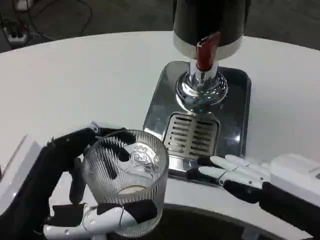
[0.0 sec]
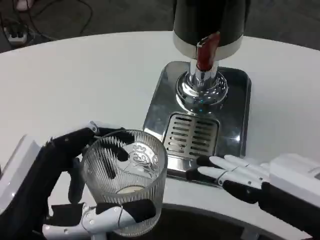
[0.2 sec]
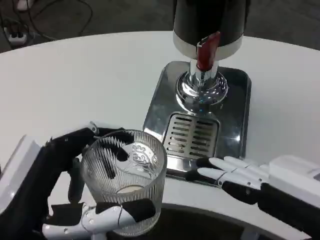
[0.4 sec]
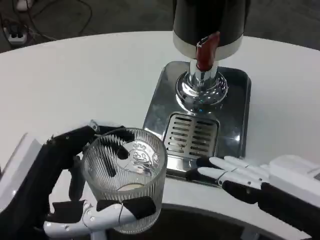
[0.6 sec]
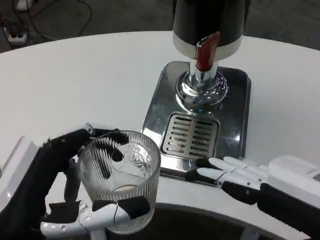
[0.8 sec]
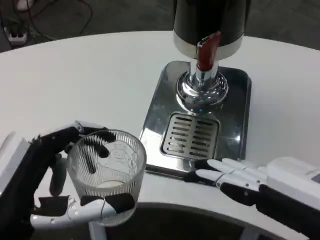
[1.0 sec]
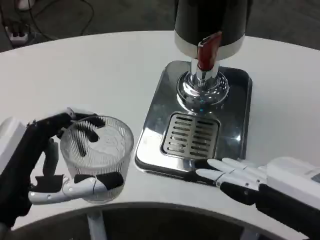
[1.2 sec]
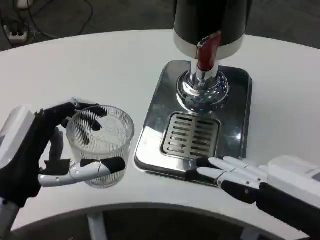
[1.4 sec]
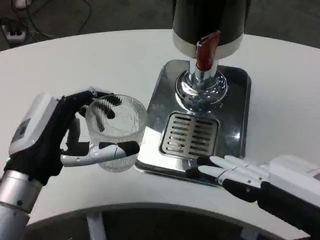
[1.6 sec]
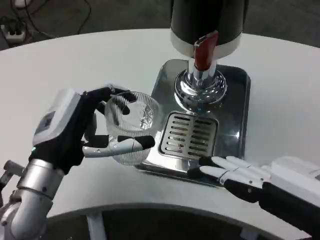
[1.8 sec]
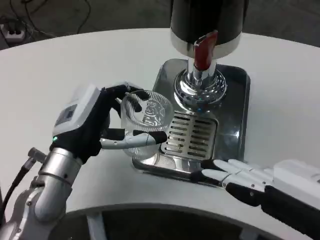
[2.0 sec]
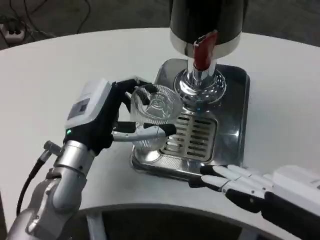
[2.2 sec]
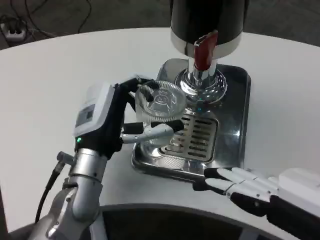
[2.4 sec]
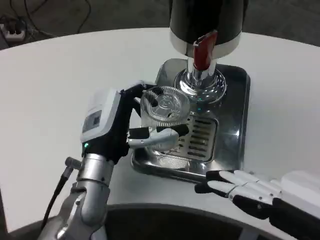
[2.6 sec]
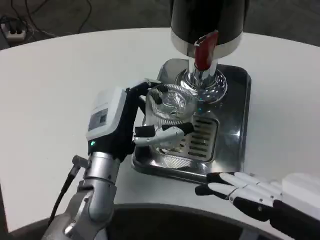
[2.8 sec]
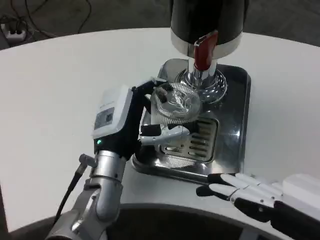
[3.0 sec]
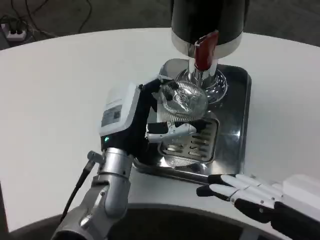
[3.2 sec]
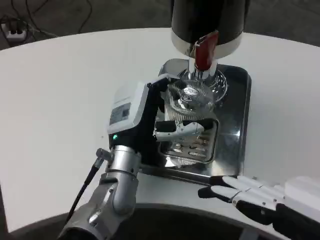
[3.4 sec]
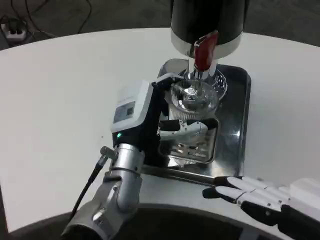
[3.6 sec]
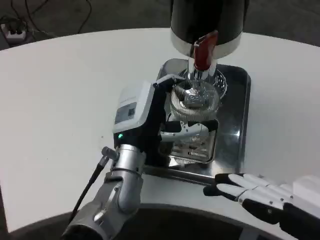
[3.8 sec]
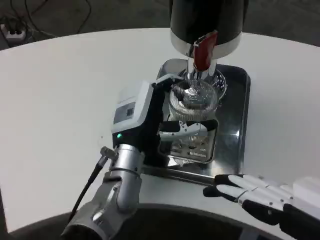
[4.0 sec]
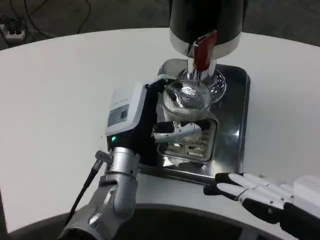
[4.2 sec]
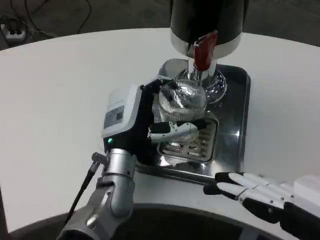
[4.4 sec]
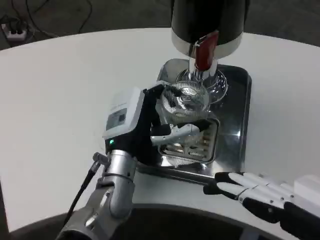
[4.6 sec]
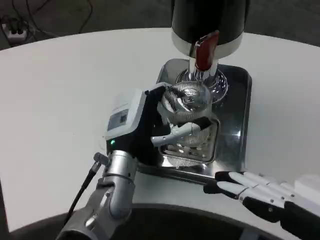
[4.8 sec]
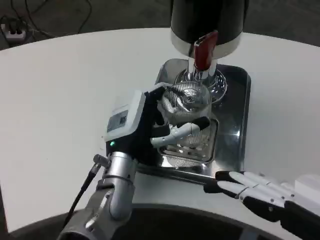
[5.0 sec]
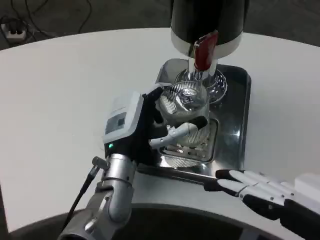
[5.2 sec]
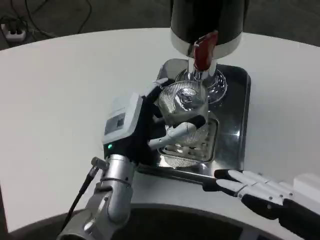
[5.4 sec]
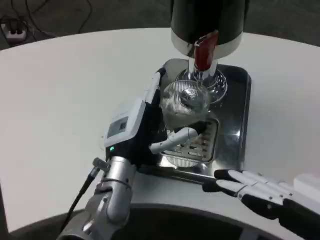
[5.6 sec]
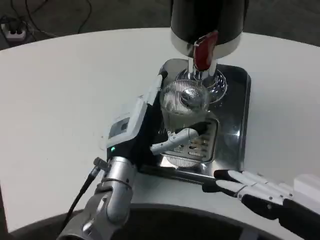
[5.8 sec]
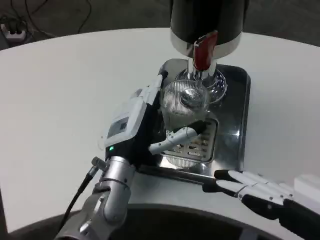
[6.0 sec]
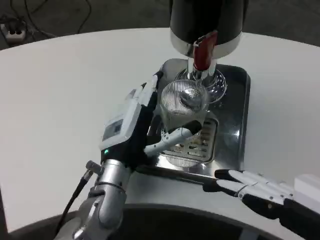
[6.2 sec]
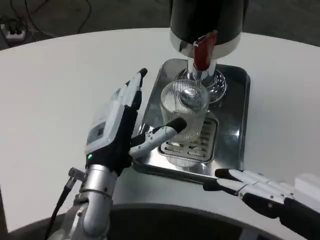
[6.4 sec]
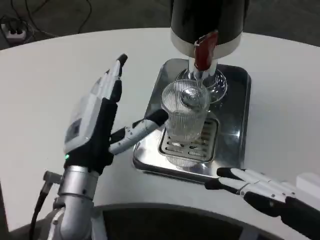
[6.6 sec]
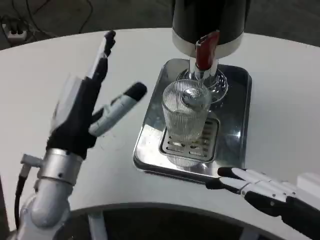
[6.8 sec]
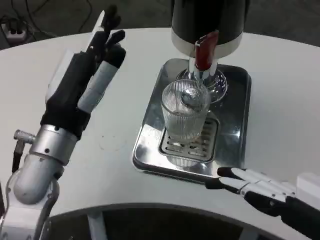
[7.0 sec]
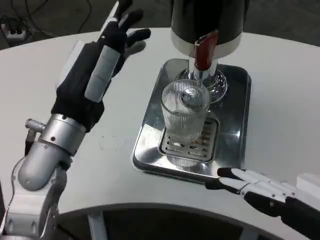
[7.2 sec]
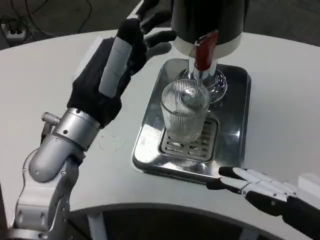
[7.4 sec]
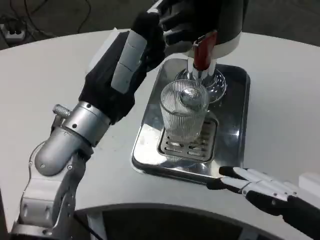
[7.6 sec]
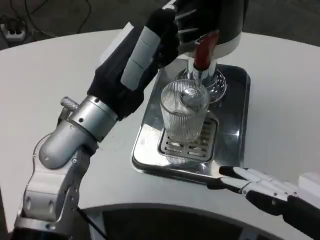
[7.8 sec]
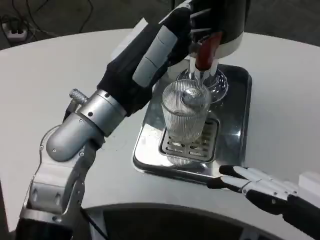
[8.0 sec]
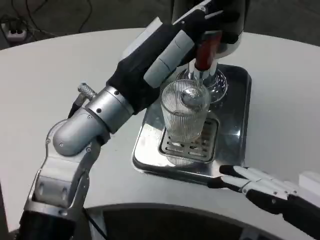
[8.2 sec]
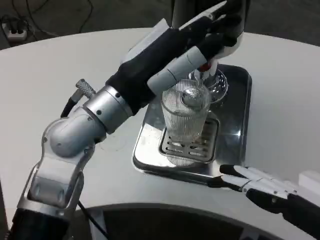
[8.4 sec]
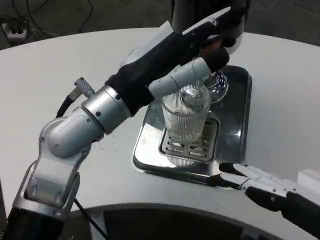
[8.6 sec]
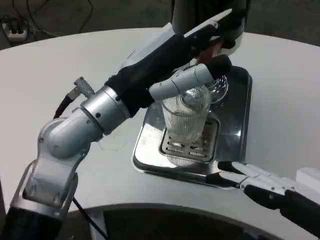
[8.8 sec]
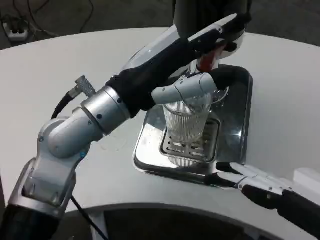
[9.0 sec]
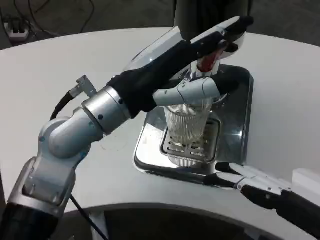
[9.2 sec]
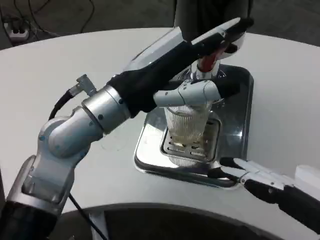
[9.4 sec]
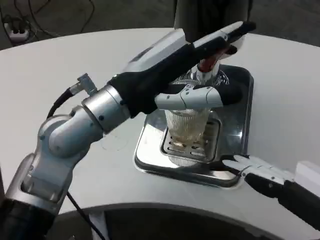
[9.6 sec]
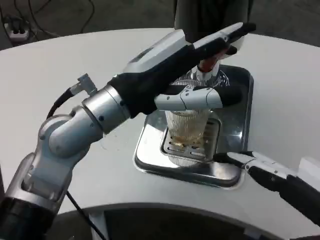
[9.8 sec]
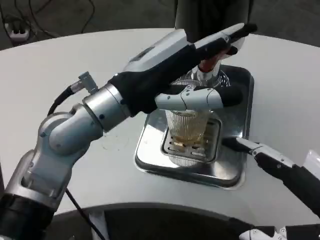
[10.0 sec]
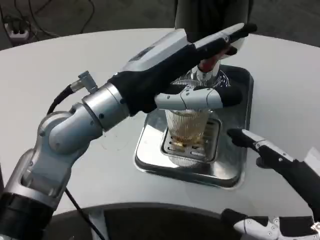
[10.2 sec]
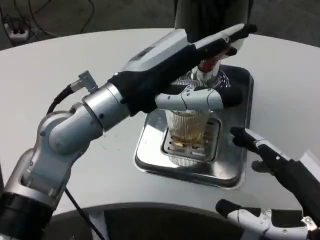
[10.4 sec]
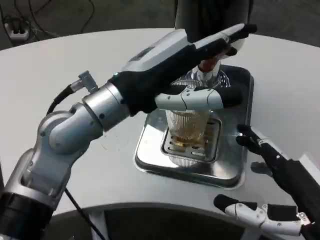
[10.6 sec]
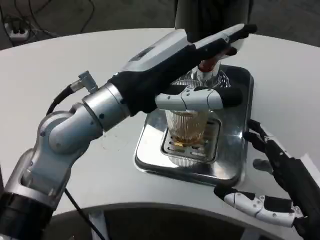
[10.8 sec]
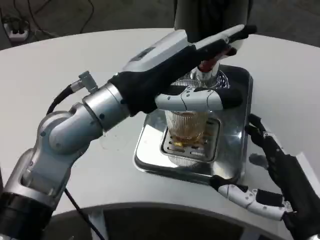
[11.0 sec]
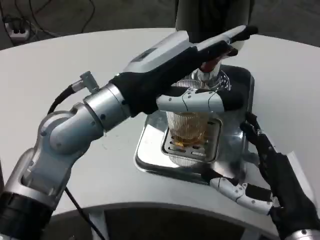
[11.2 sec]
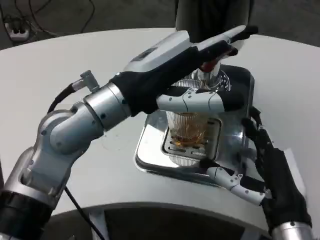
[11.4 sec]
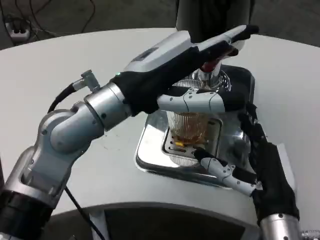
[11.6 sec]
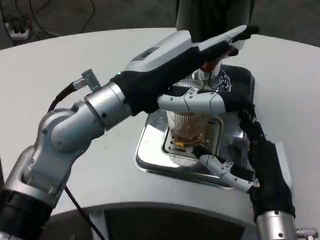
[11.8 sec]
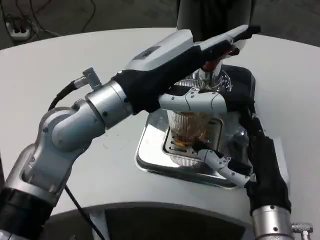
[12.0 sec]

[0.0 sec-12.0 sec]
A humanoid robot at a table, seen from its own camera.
Task of the whole recording: Grasp the cup under the faucet to collect the drink, then remove the cup.
0.0 sec to 1.6 sec: The left hand moves forward, some 10 cm.
1.6 sec to 3.0 sec: The left hand shifts some 15 cm to the right and forward.
3.0 sec to 6.0 sec: The hands make only small movements.
6.0 sec to 7.6 sec: The left hand heads upward, covering approximately 10 cm.
9.0 sec to 10.4 sec: The right hand heads downward, covering roughly 5 cm.
10.4 sec to 12.0 sec: The right hand is displaced forward, to the left and downward by approximately 15 cm.

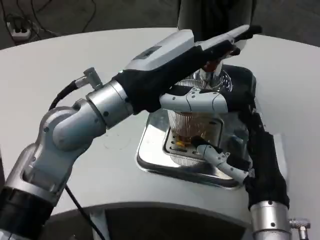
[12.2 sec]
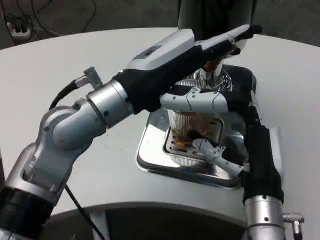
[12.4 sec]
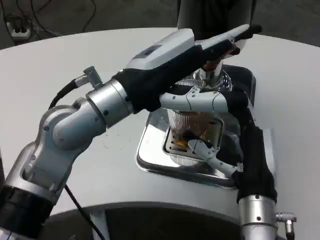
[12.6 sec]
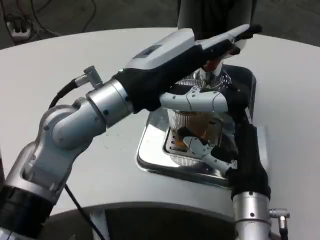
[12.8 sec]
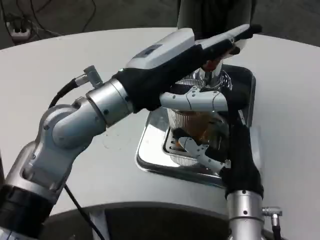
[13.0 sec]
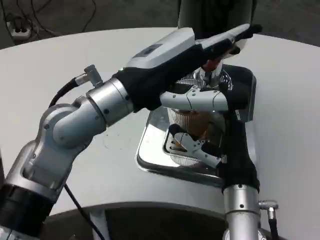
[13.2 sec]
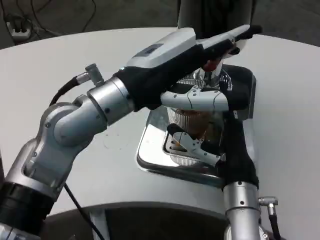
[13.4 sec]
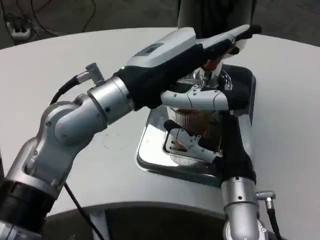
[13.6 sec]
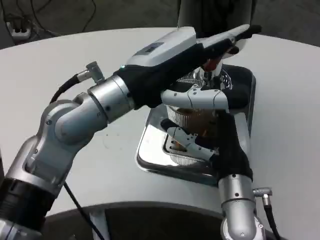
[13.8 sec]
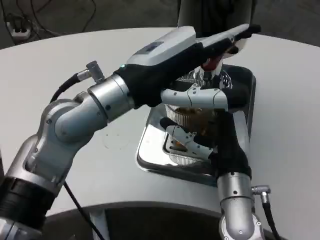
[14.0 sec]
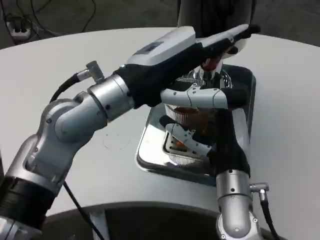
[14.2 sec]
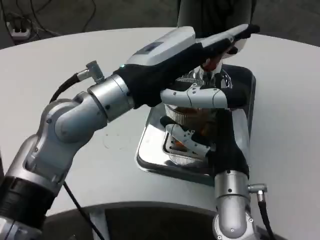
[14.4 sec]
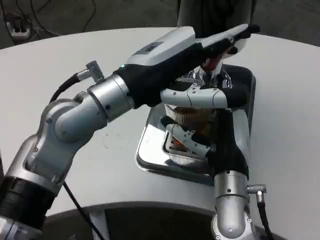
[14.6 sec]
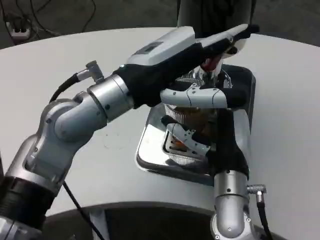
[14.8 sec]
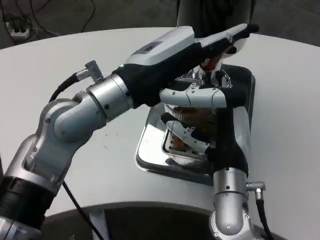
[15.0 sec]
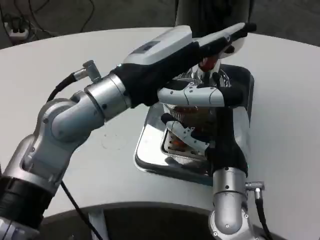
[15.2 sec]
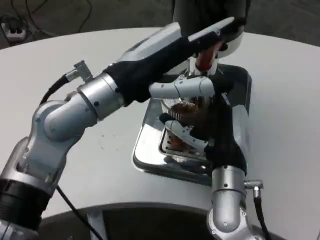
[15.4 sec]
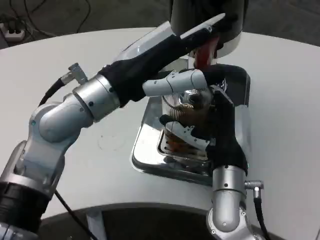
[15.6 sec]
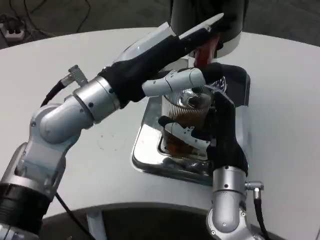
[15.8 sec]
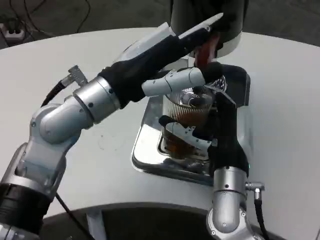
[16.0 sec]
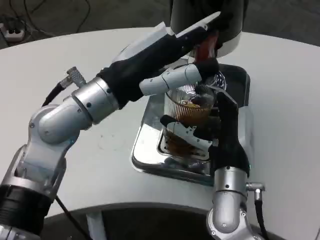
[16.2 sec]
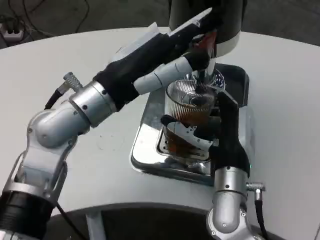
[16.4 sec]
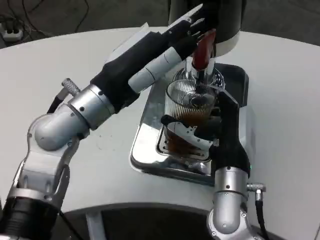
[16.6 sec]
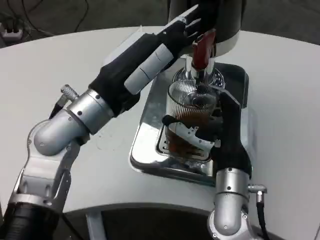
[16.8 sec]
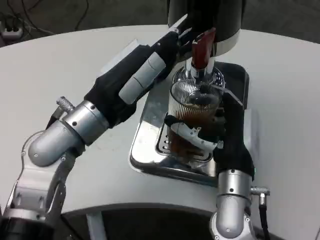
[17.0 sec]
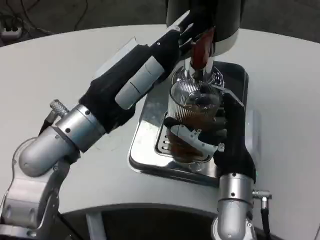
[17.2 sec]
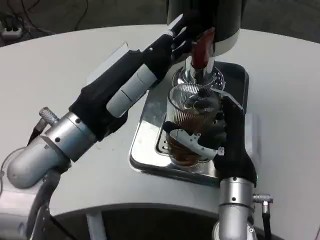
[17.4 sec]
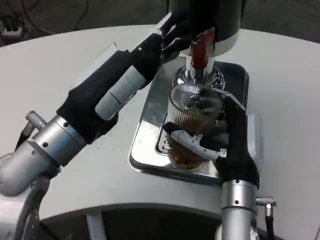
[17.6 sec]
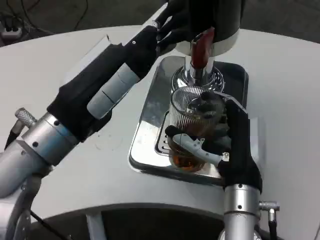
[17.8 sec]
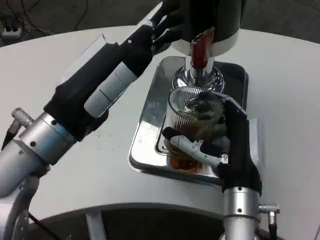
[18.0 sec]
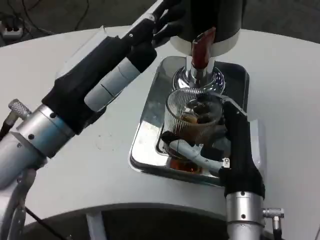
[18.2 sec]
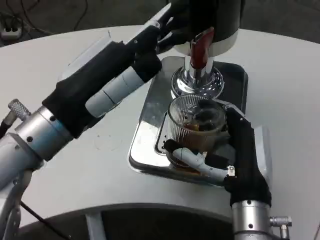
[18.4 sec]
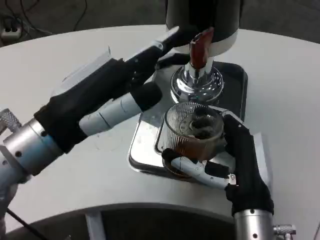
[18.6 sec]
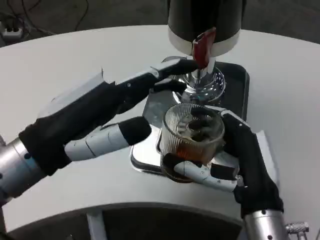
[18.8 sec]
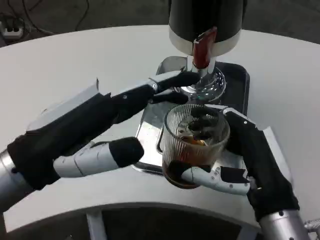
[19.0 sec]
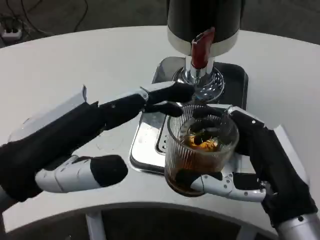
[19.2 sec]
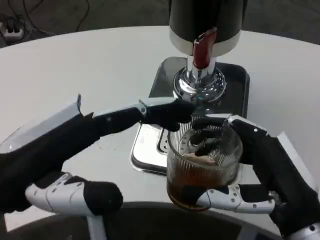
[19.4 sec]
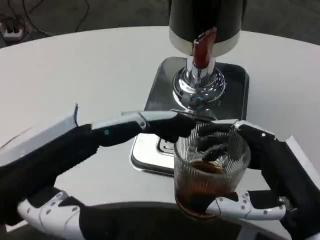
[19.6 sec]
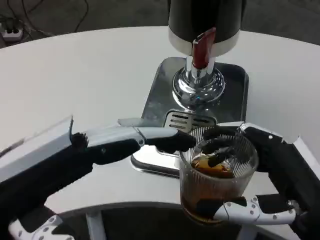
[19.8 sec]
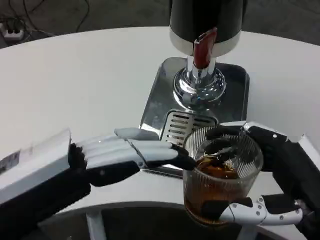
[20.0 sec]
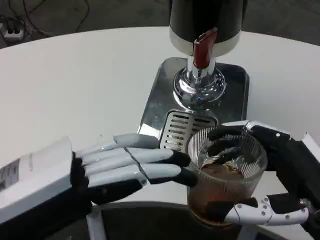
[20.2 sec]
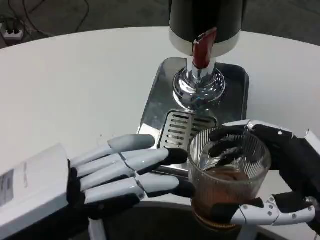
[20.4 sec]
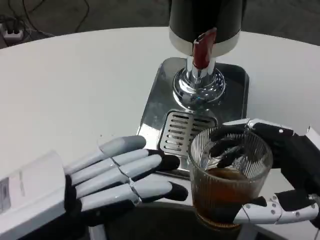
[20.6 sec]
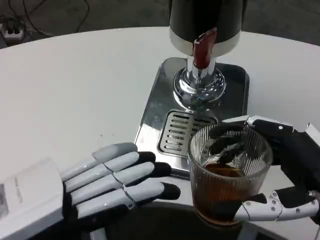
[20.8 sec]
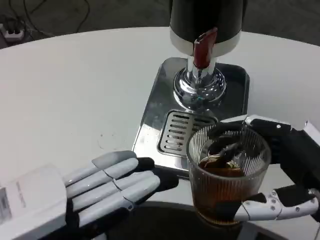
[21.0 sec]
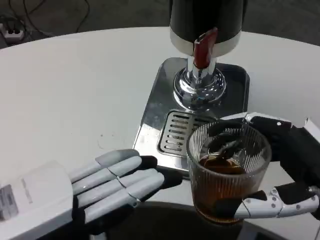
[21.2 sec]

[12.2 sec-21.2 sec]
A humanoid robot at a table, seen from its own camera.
Task of the whole recording: Grasp the cup under the faucet to collect the drink, then remove the cup.
12.2 sec to 13.8 sec: The right hand ends up roughly 5 cm from where it was.
13.8 sec to 15.2 sec: The hands move only a little.
16.6 sec to 18.2 sec: The left hand travels backward by some 5 cm, while the right hand shifts by about 5 cm.
18.2 sec to 19.8 sec: The left hand goes some 10 cm backward and to the left; the right hand shifts approximately 15 cm to the right and backward.
